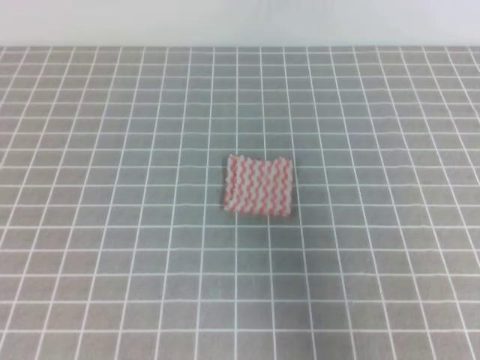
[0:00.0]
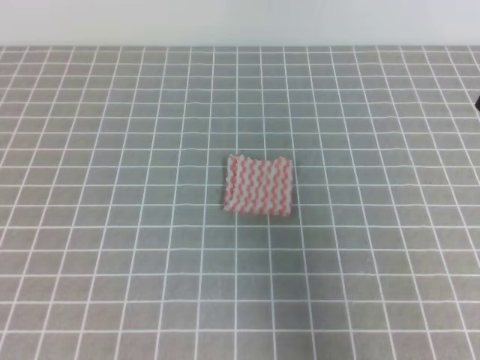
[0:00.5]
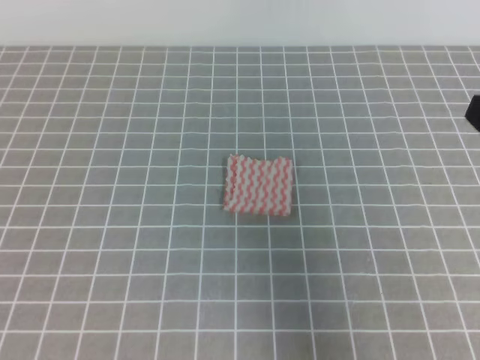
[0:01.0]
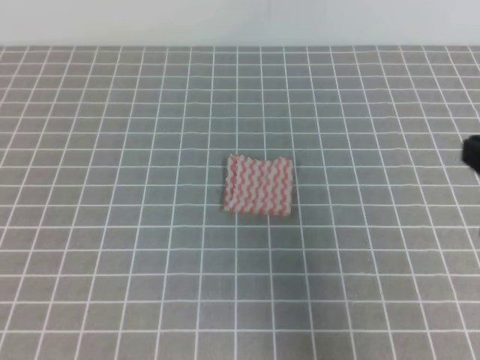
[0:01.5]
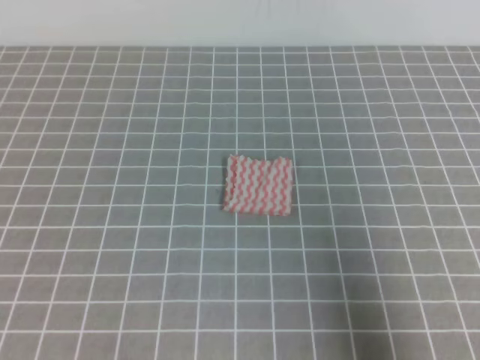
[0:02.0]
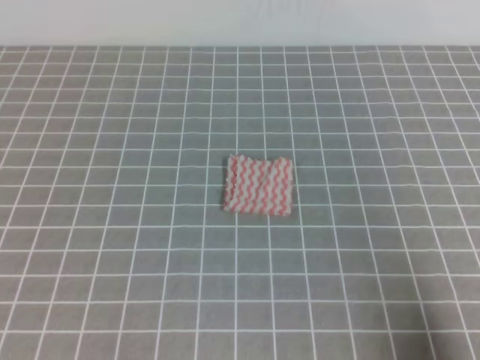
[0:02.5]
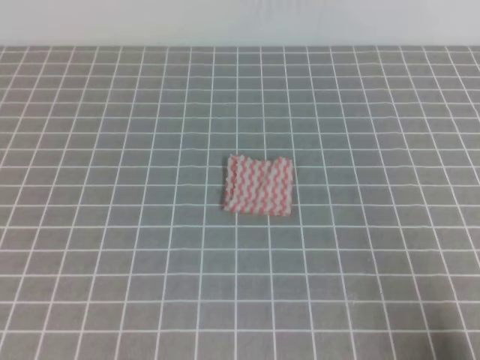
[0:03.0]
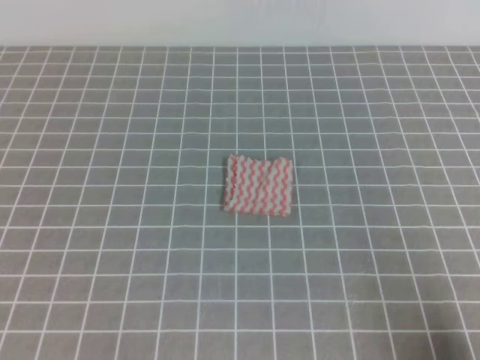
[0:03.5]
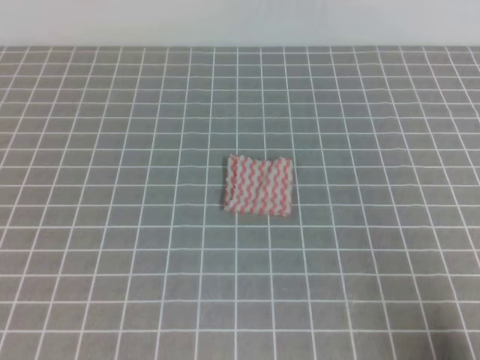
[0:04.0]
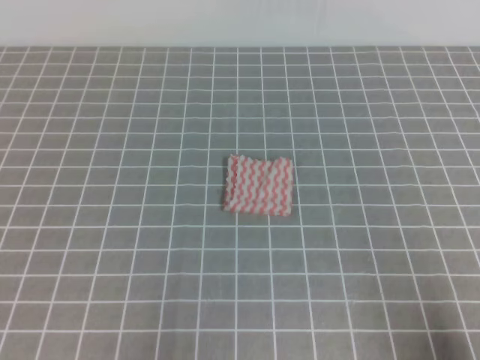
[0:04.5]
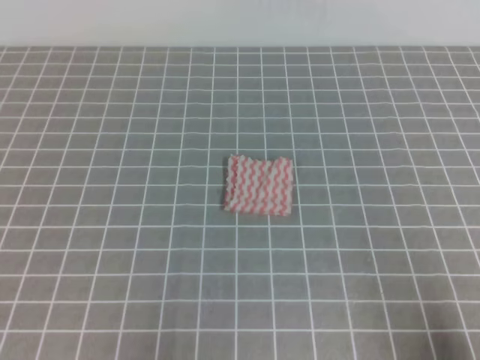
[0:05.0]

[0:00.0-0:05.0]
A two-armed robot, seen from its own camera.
Step, 0:00.0 to 0:05.0: Fold the towel.
0:00.0 to 0:02.5: The right gripper shifts some 20 cm downward, backward and to the right.
